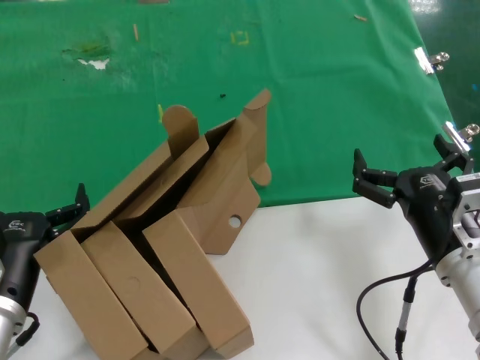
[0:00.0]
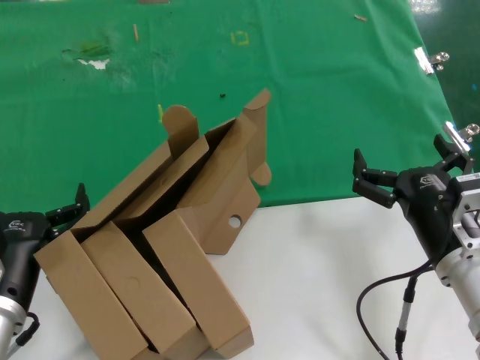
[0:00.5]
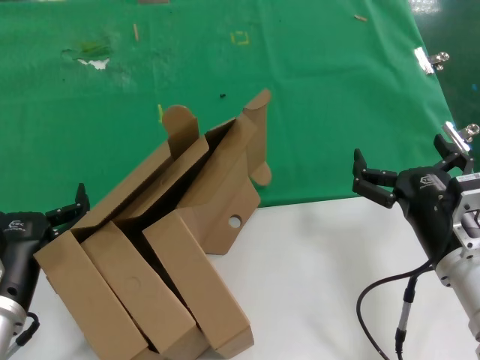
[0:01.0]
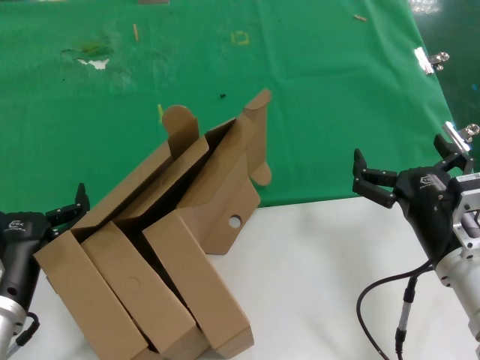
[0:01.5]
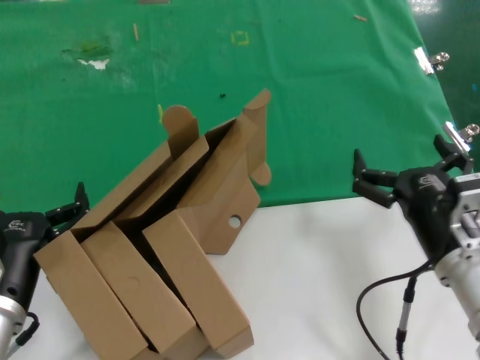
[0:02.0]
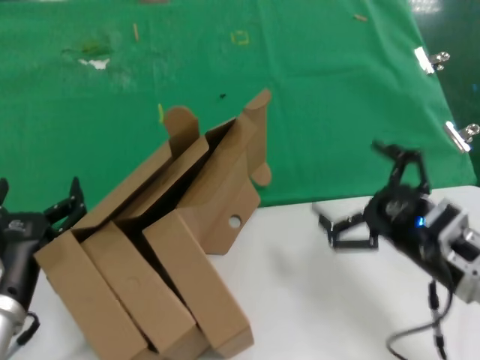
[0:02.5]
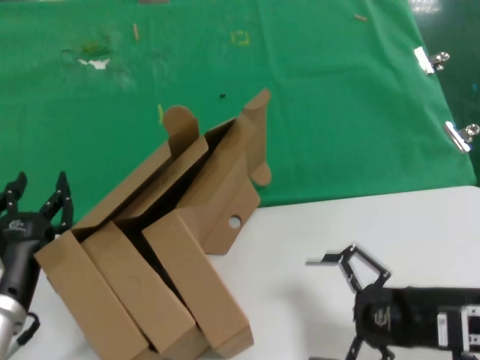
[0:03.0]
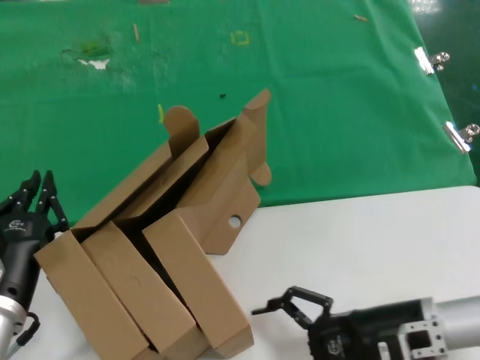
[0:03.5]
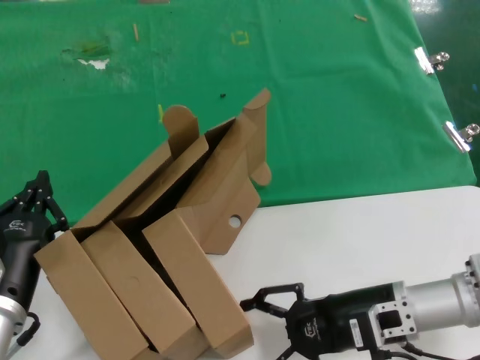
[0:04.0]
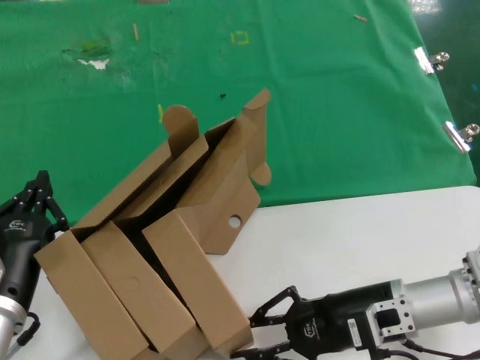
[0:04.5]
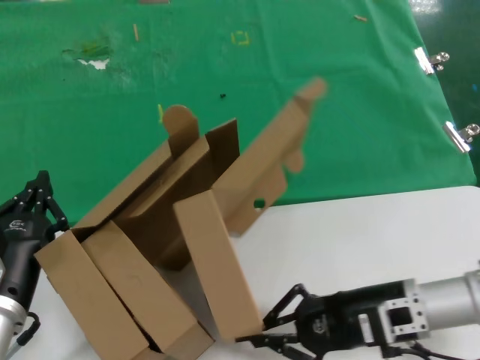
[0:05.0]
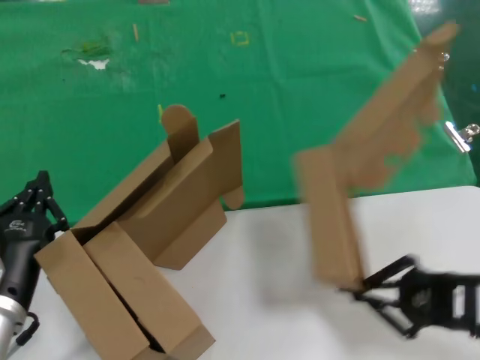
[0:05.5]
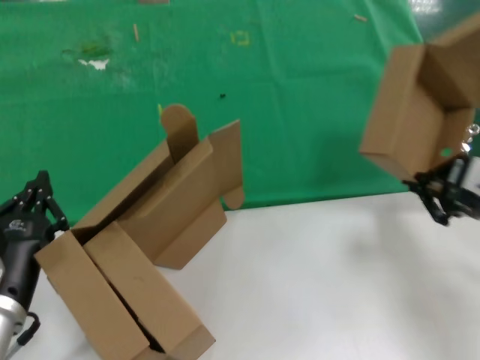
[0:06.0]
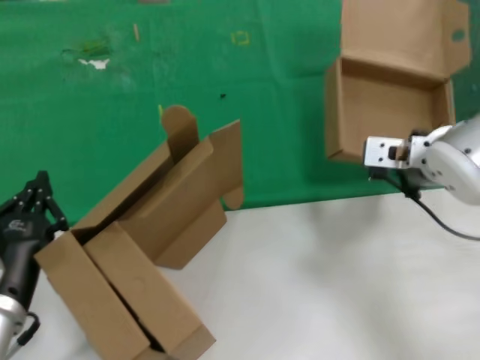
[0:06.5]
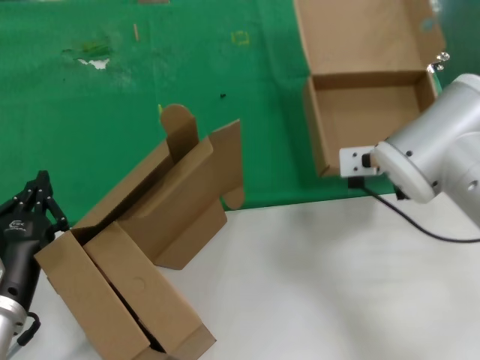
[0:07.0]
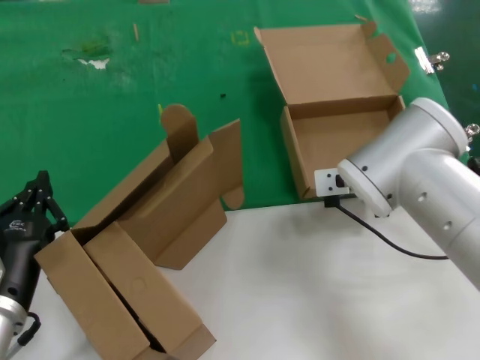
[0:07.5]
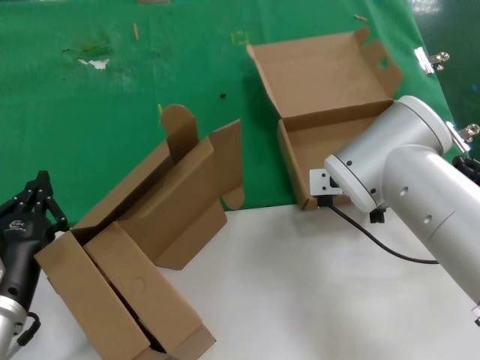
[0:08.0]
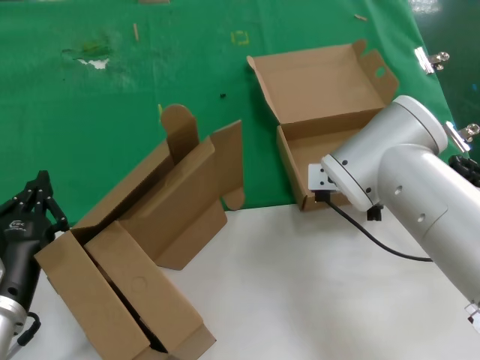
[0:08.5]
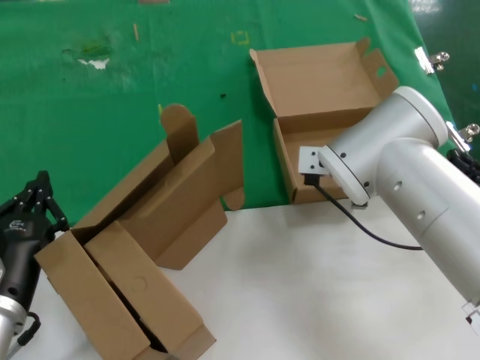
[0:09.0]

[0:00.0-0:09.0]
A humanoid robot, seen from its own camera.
Task of the whole recording: pick up the paper box and put it at the back.
Step, 0:00.0 to 0:04.5: Grasp the paper box.
Step, 0:05.0 to 0:09.0: Place the paper box on the table.
0:00.0 to 0:02.0: The two hands keep their place.
0:02.0 to 0:04.5: The right hand shifts approximately 5 cm forward, and moves approximately 10 cm to the right and comes back.
0:04.5 to 0:07.0: The right hand goes approximately 20 cm upward and forward.
0:07.0 to 0:09.0: The right hand heads to the left, covering about 5 cm.

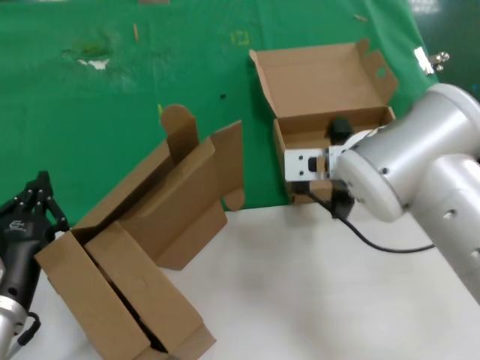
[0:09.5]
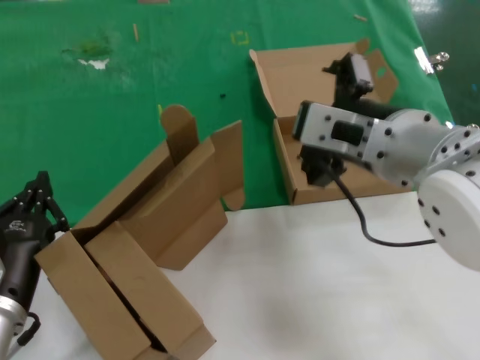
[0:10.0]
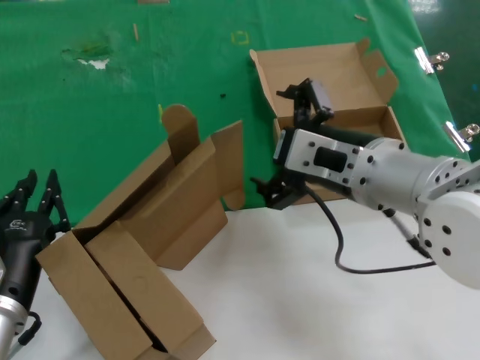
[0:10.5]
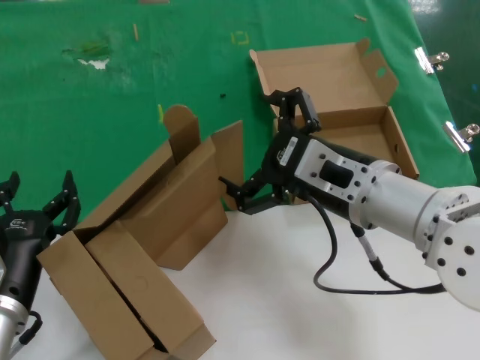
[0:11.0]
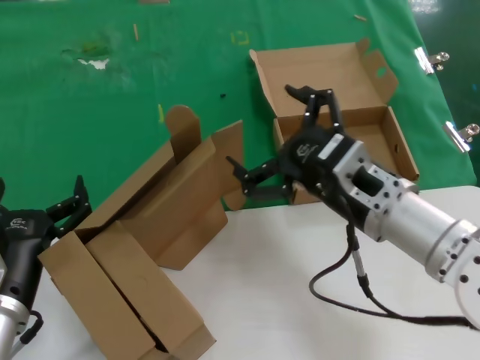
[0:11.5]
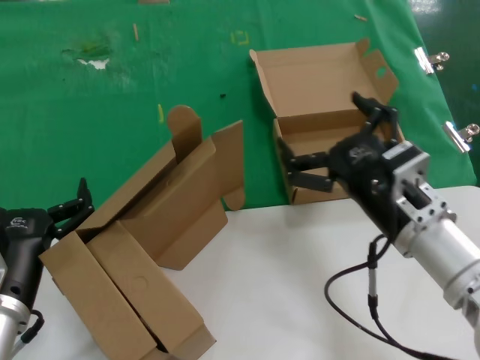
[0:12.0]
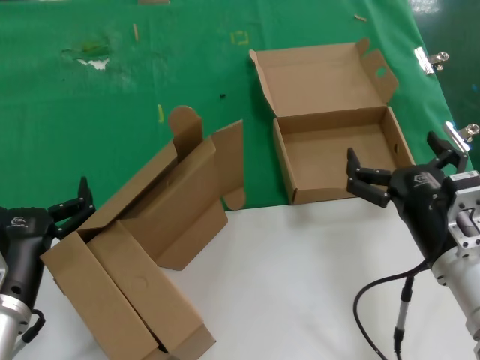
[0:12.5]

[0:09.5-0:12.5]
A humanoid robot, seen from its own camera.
Task of the whole recording: pick up the paper box and put it at the back.
0:09.5 to 0:11.0: The right hand travels backward by some 10 cm.
0:11.0 to 0:12.5: The right hand goes approximately 15 cm downward and to the right.
